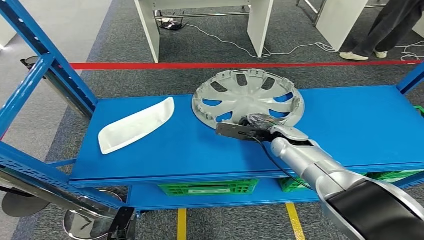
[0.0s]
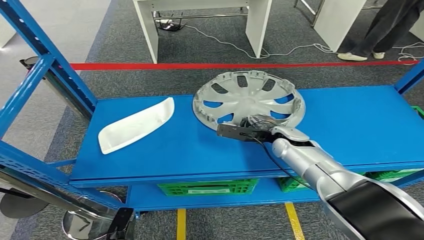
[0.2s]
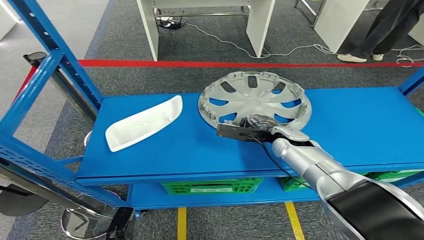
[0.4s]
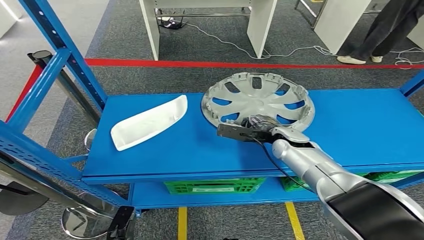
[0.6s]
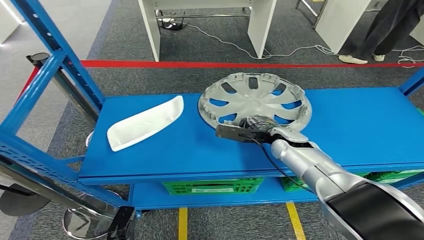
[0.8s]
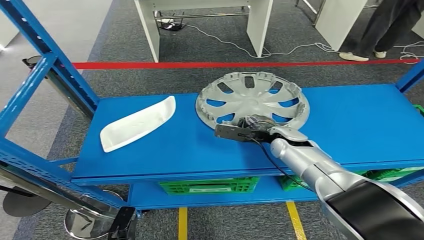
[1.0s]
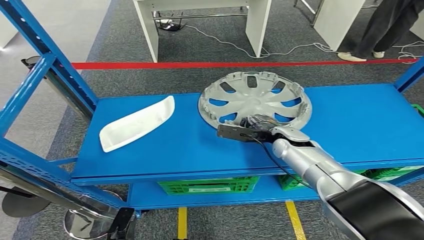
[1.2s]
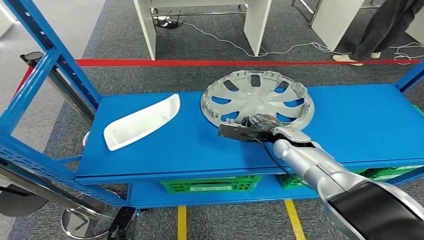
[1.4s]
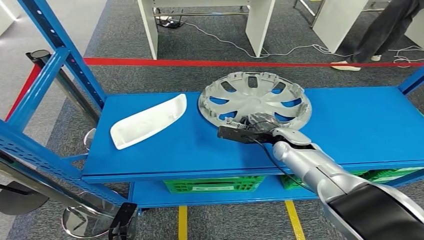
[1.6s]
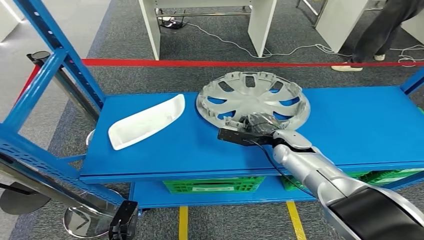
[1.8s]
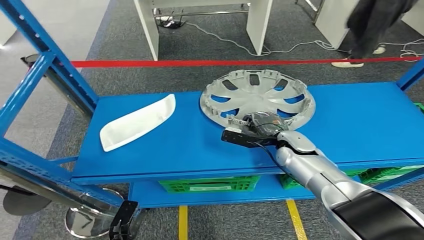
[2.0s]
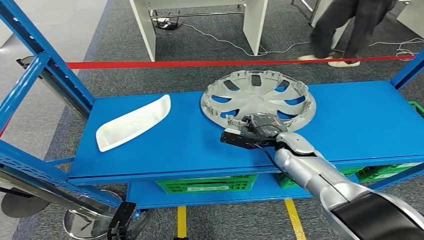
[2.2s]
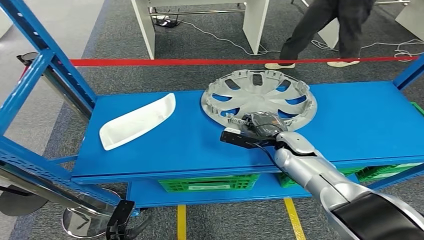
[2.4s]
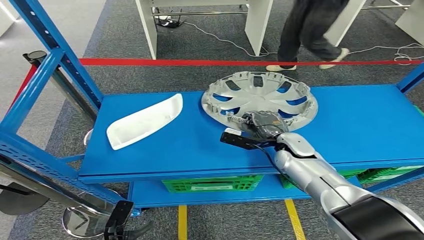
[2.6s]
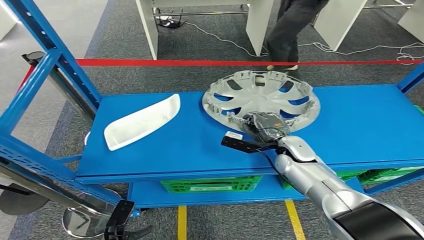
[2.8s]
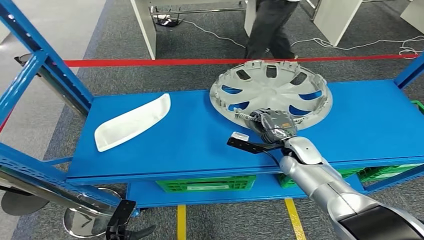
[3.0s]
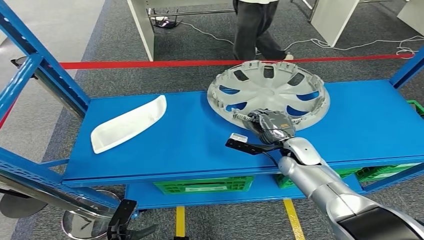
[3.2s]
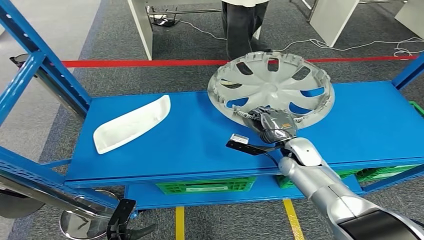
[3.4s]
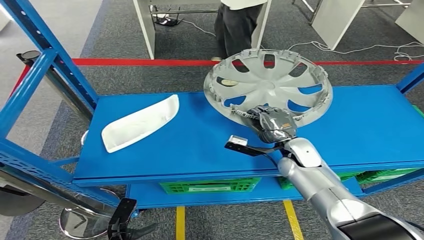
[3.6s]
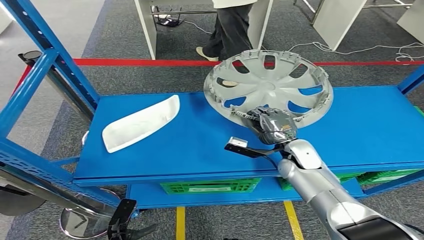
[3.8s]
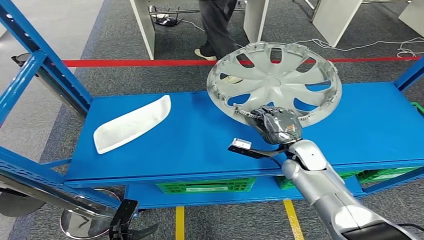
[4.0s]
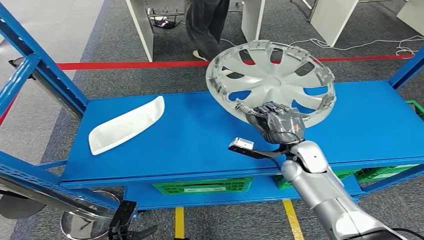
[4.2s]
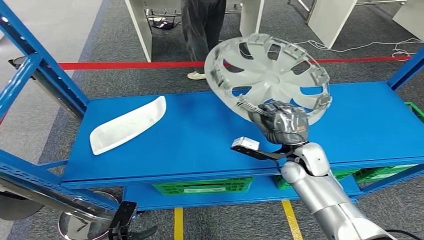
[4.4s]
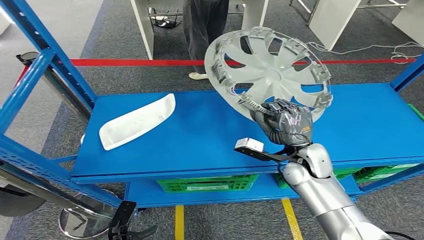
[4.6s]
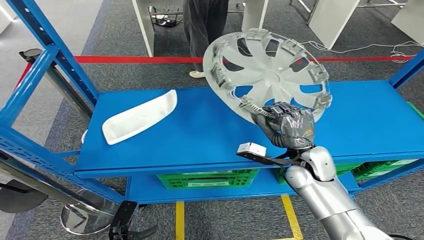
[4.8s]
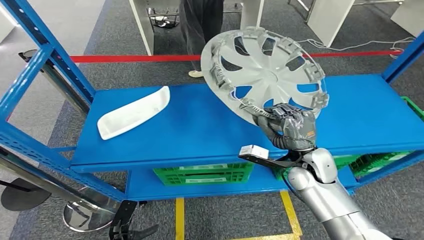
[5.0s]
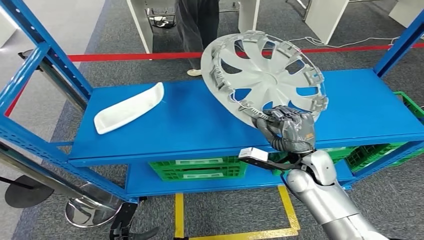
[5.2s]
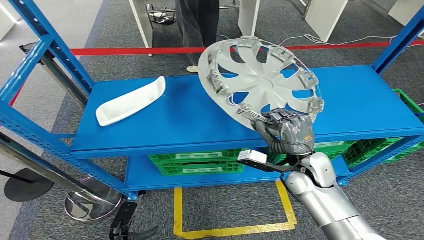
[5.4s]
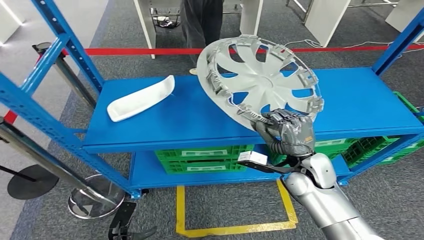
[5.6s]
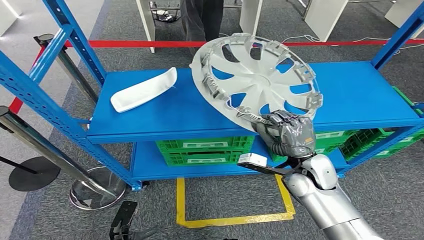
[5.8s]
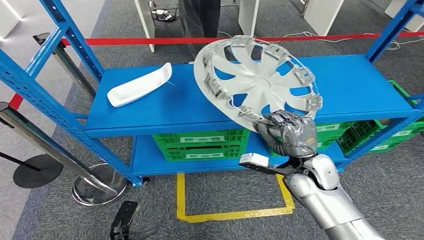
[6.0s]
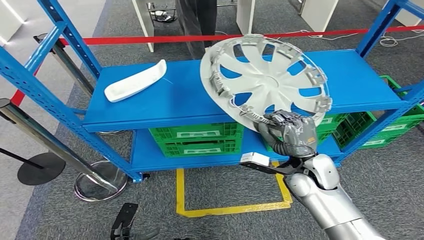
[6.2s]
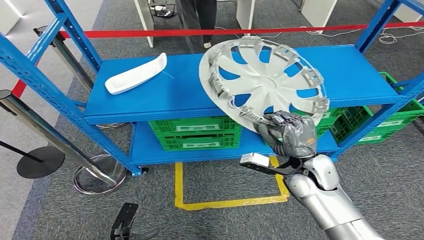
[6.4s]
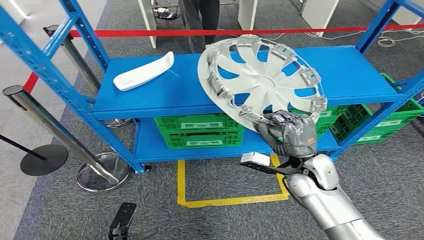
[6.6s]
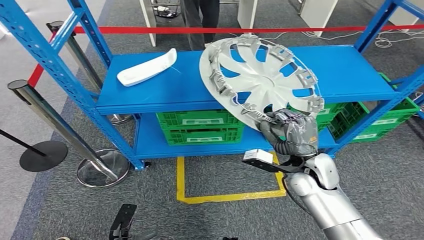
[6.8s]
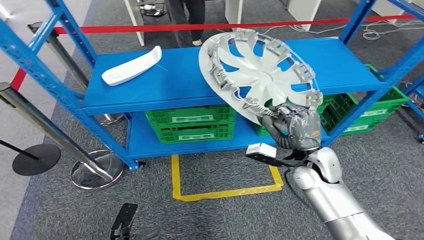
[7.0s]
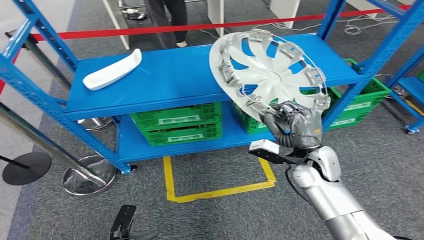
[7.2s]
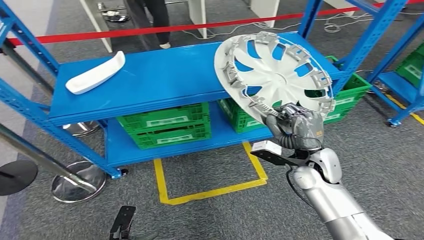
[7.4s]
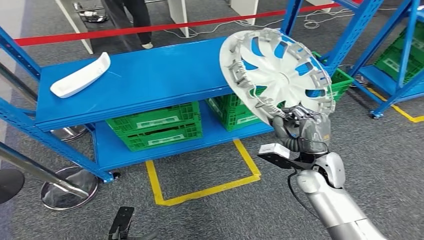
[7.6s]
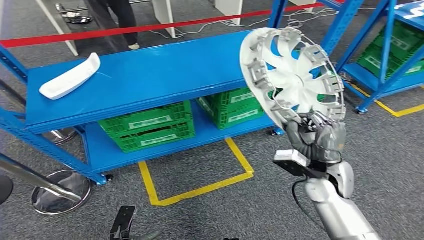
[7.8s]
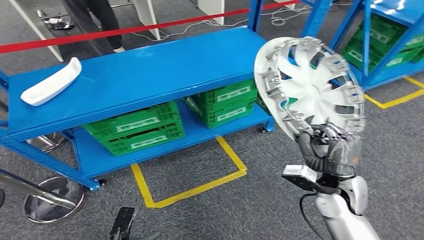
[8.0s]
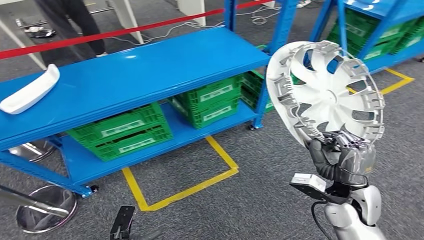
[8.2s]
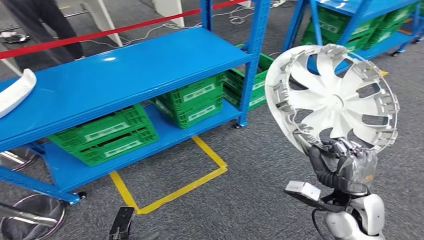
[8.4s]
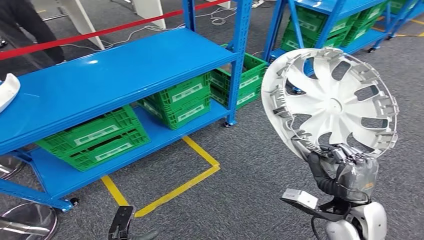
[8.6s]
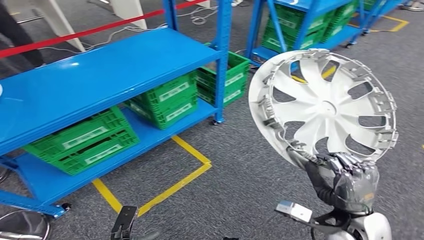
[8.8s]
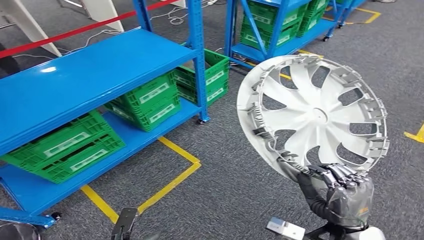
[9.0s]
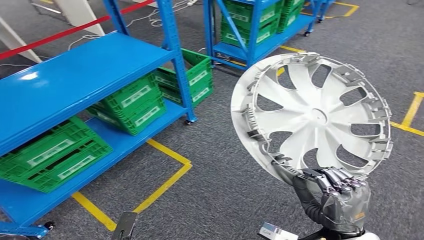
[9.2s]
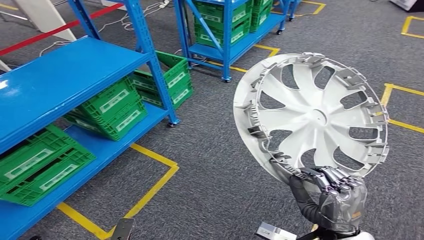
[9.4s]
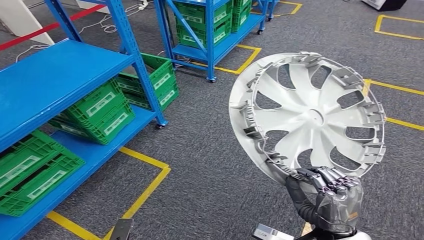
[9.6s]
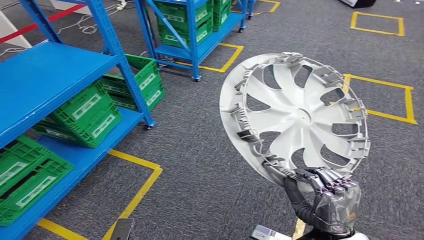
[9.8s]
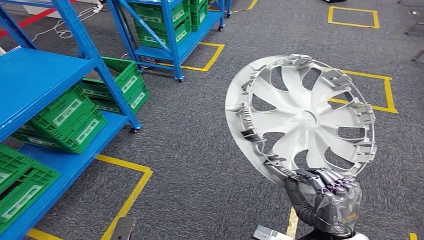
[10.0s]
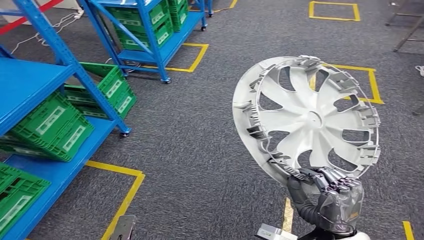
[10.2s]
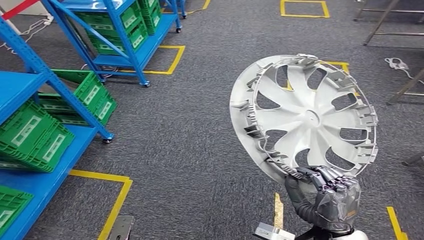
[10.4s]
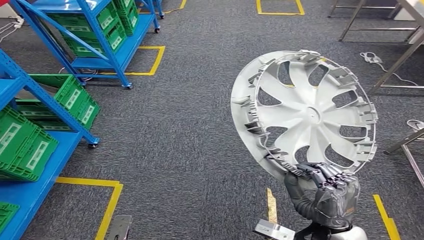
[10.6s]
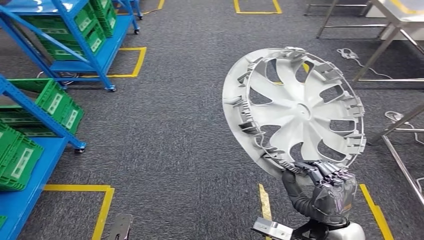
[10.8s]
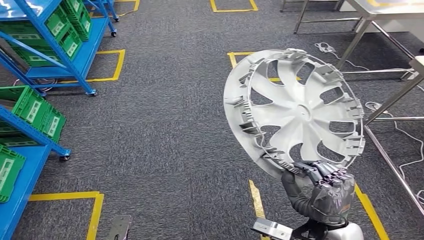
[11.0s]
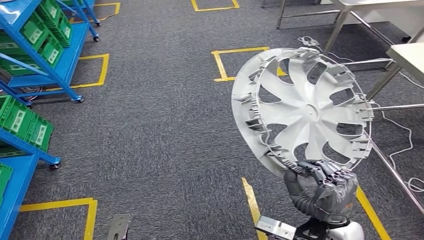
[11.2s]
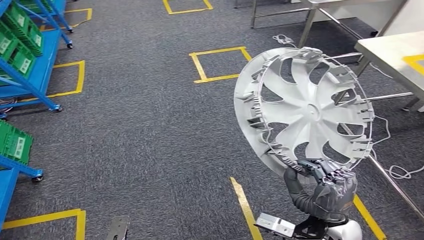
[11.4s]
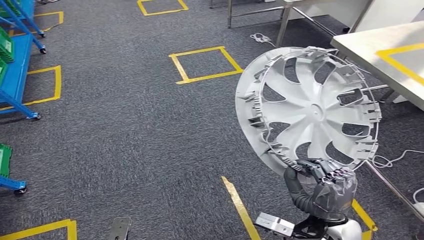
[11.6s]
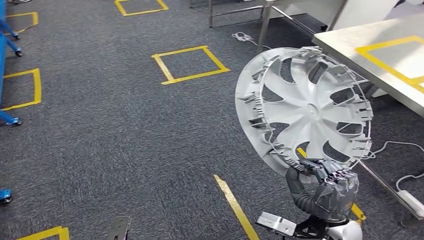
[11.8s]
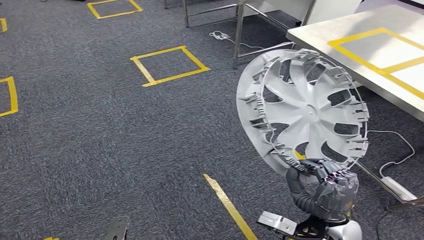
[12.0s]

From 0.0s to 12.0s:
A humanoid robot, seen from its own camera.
Step, from 0.0s to 6.2s: Take small components from the rack.

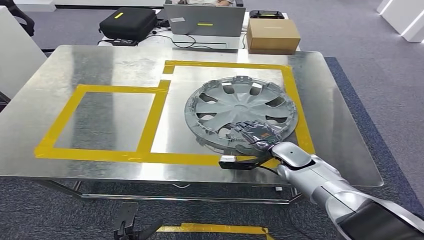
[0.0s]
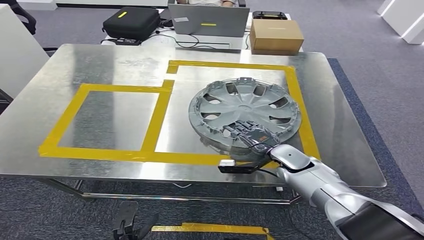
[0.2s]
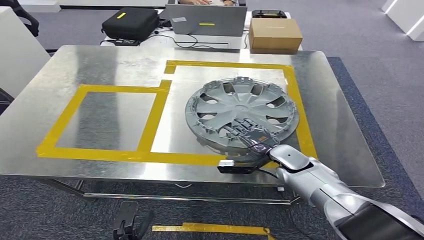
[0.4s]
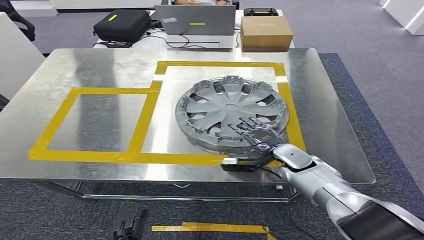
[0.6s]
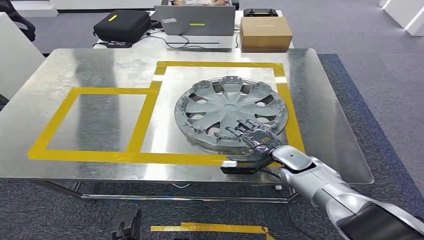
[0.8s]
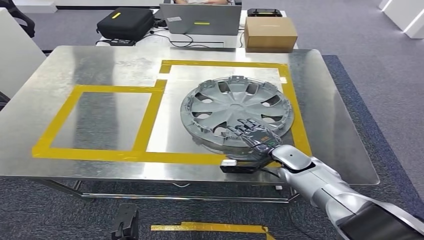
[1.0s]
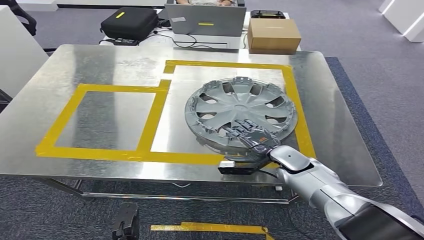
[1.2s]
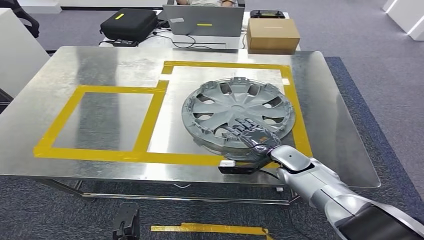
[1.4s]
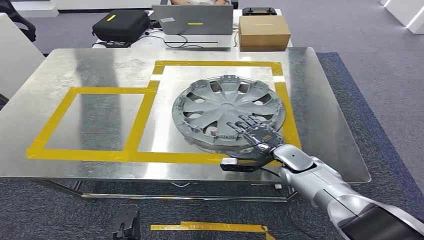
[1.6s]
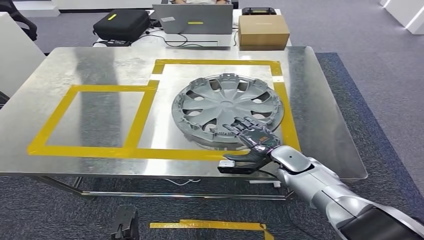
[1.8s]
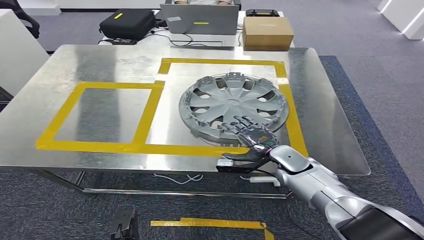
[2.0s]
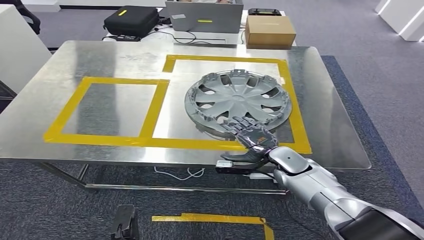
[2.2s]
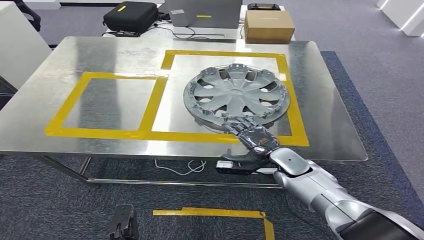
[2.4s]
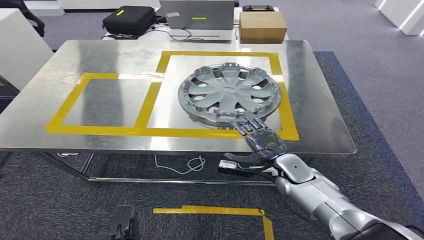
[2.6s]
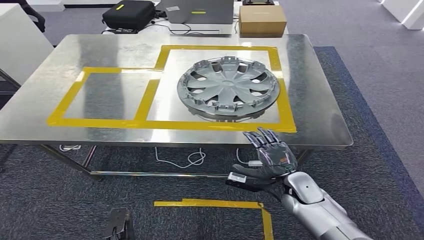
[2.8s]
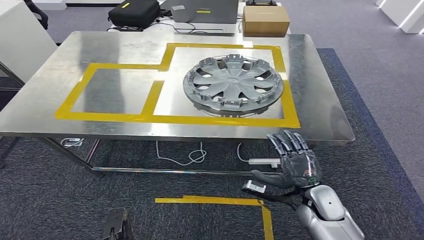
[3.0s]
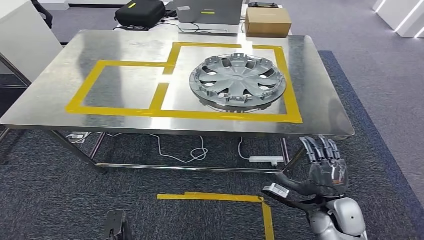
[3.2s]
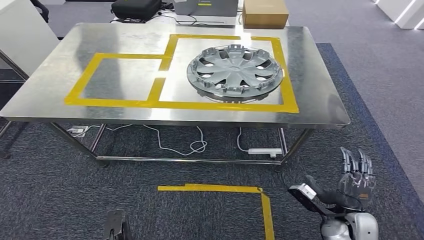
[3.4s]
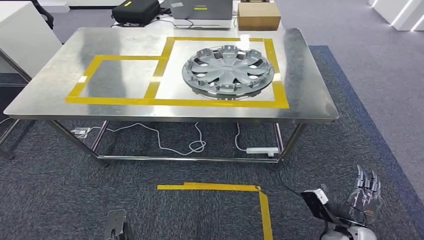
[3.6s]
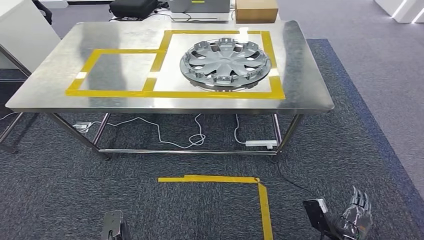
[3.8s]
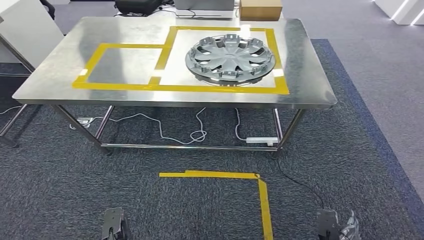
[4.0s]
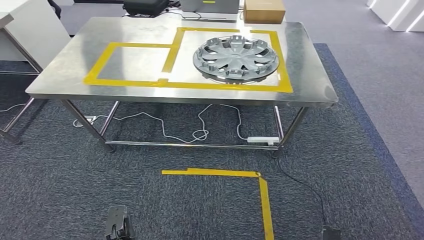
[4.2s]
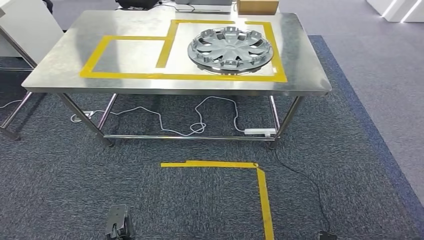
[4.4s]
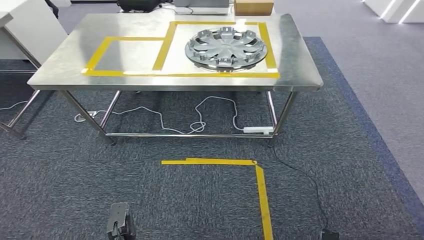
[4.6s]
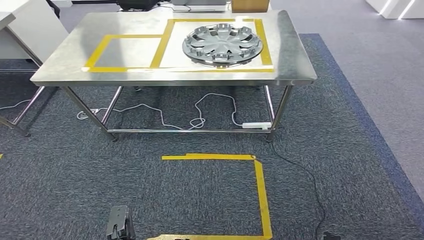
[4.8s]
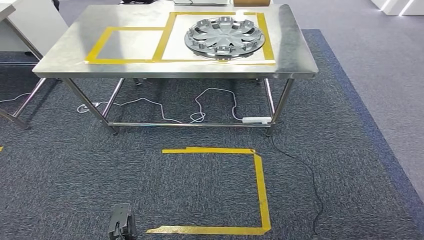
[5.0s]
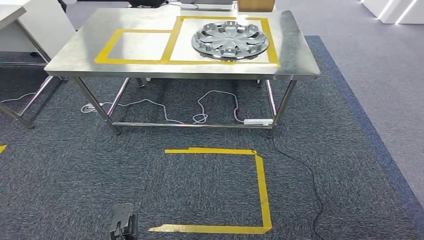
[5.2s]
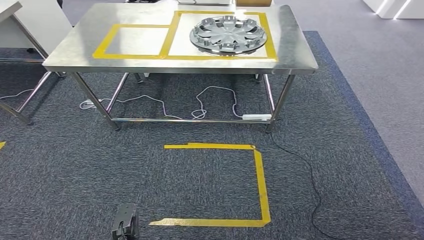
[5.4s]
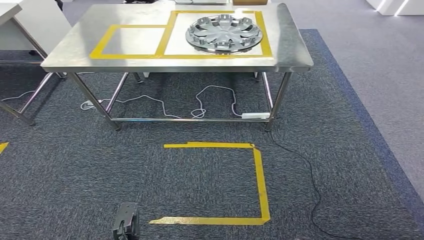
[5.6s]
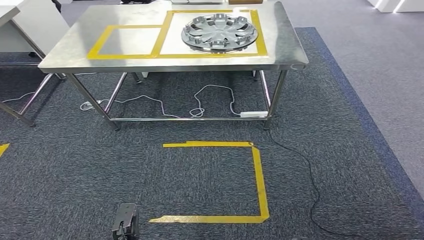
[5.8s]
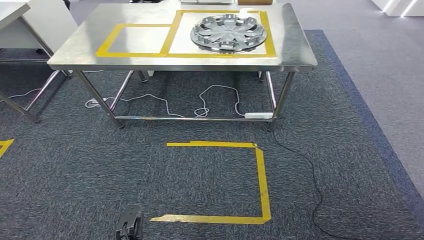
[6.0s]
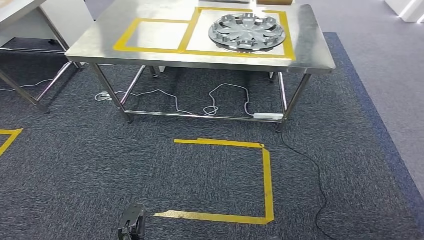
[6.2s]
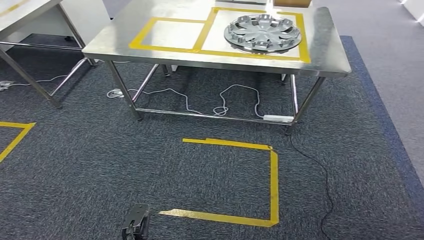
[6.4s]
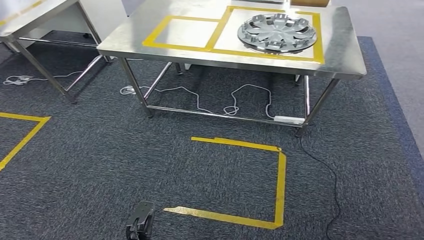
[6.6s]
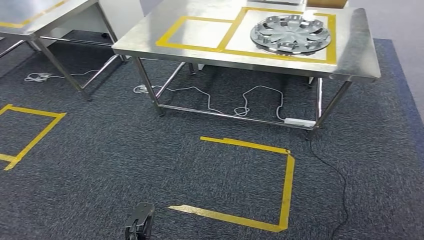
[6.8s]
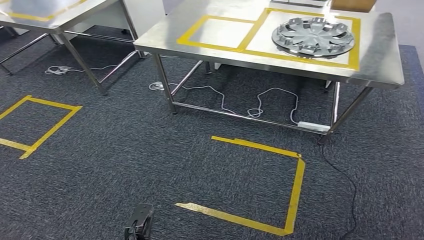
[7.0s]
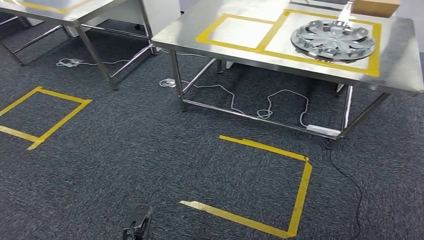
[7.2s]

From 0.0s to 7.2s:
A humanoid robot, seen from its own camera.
Step, from 0.0s to 4.8s: Insert the small parts into the corresponding holes on the workbench.
From 0.0s to 1.4s: The two hands keep their place.
